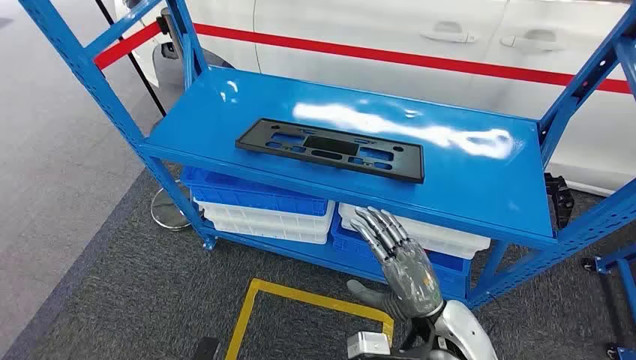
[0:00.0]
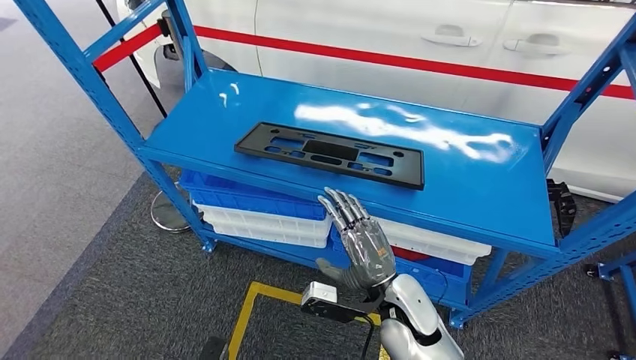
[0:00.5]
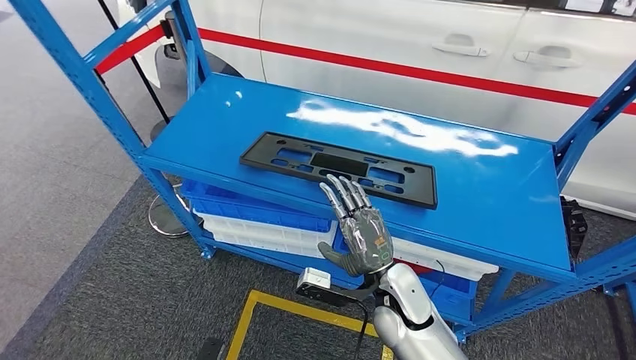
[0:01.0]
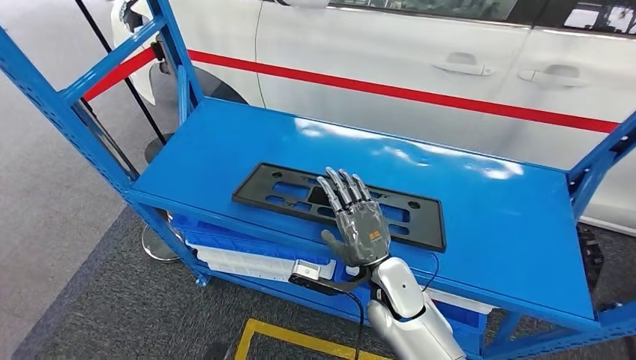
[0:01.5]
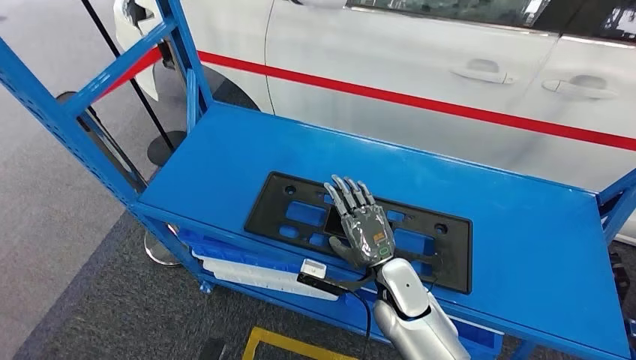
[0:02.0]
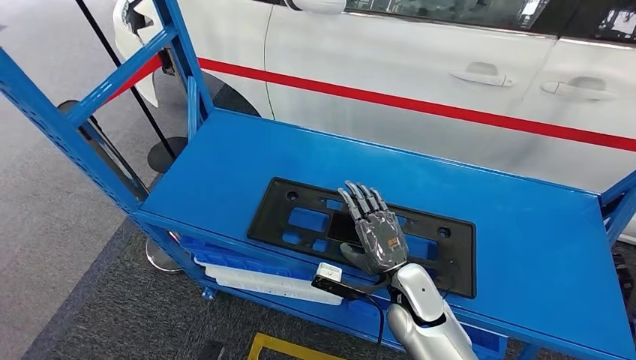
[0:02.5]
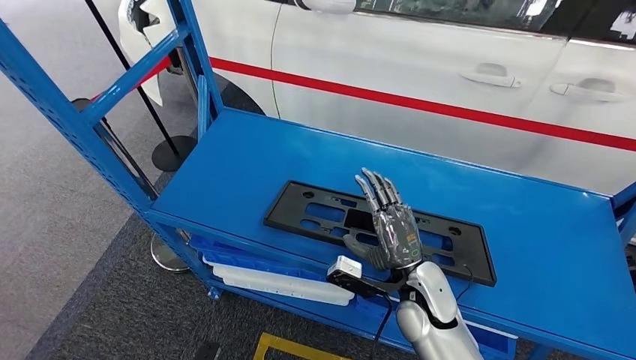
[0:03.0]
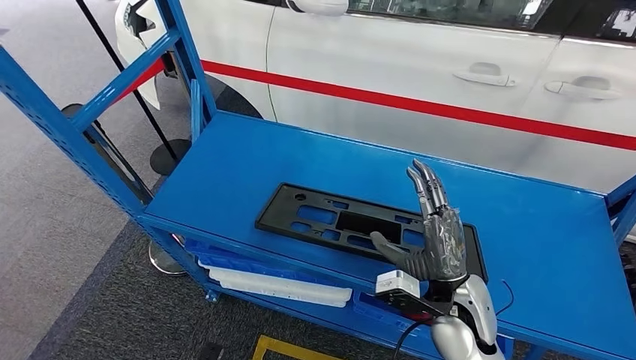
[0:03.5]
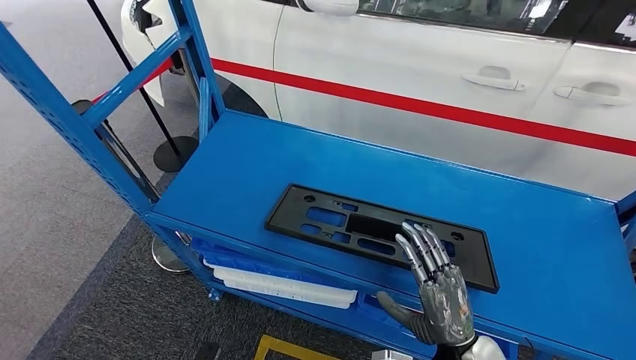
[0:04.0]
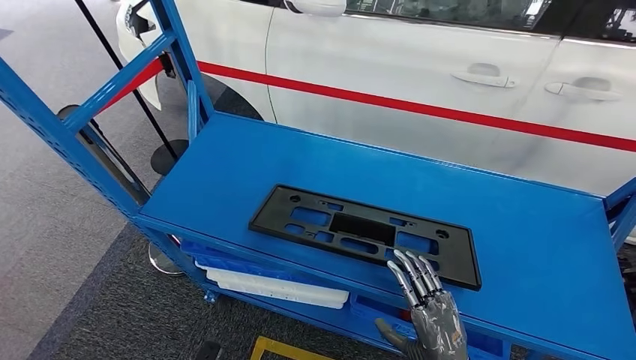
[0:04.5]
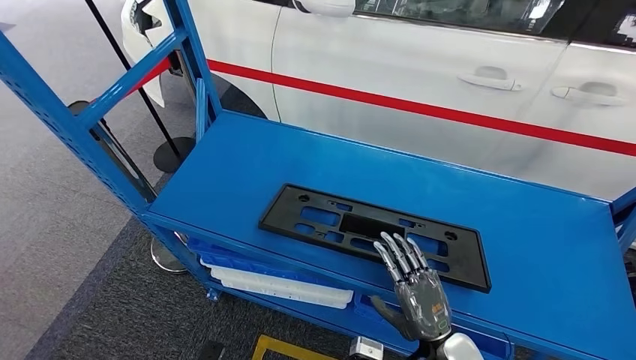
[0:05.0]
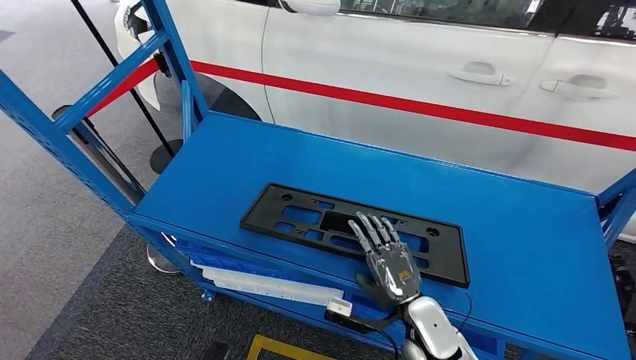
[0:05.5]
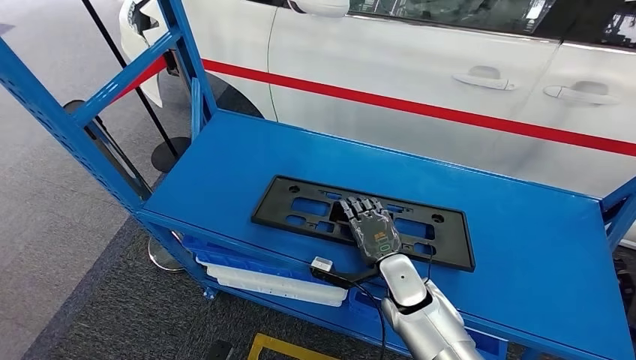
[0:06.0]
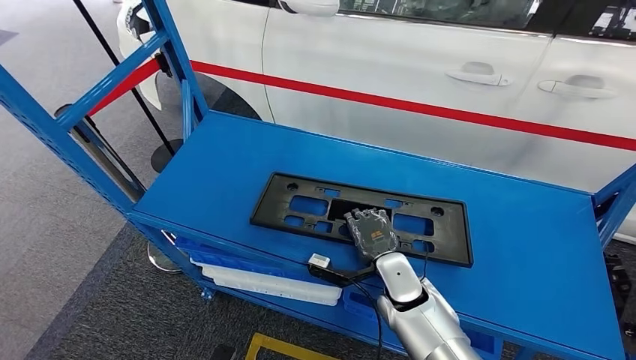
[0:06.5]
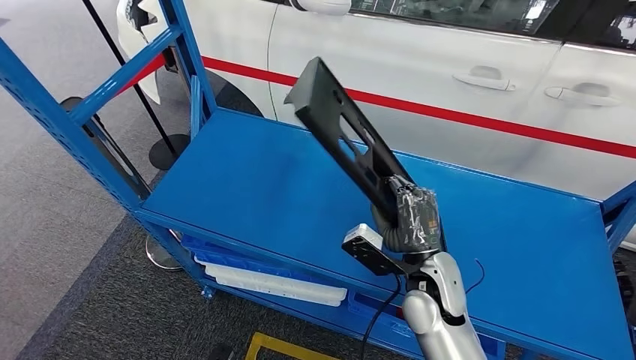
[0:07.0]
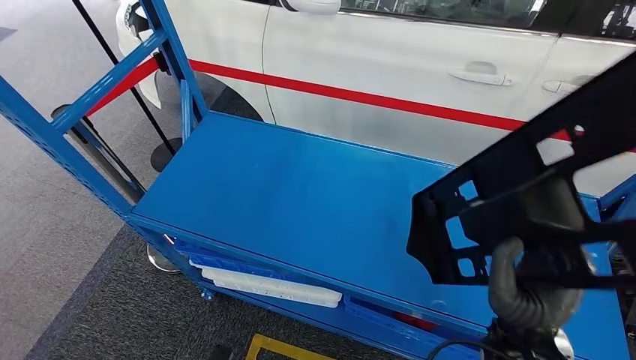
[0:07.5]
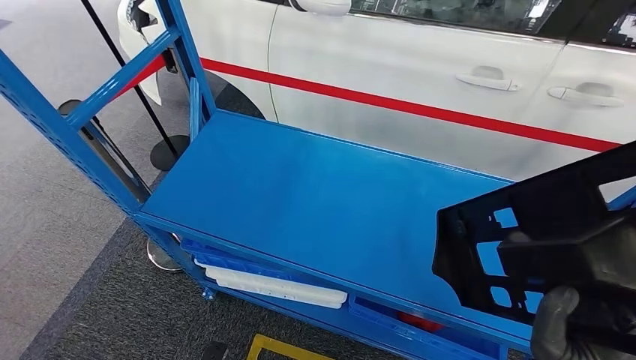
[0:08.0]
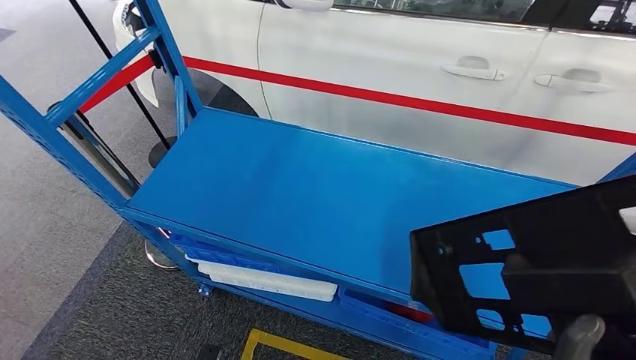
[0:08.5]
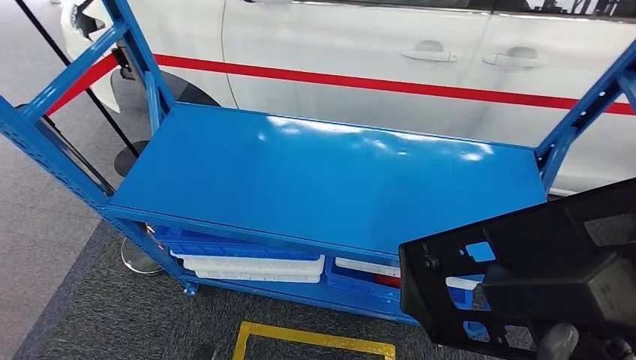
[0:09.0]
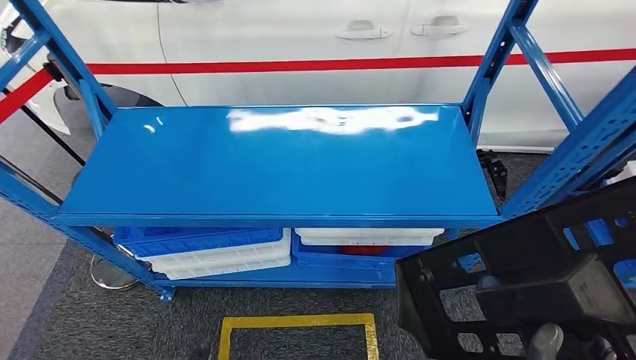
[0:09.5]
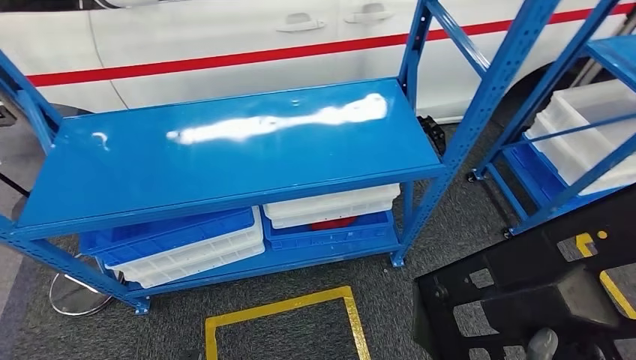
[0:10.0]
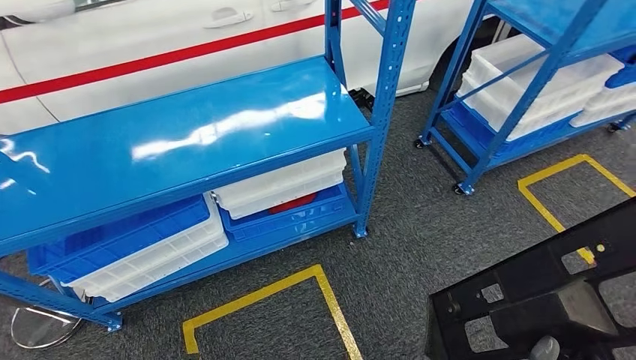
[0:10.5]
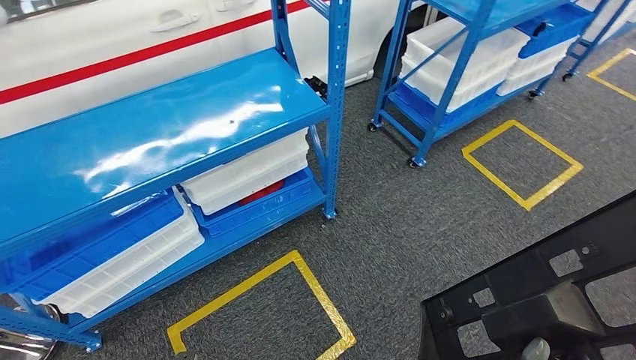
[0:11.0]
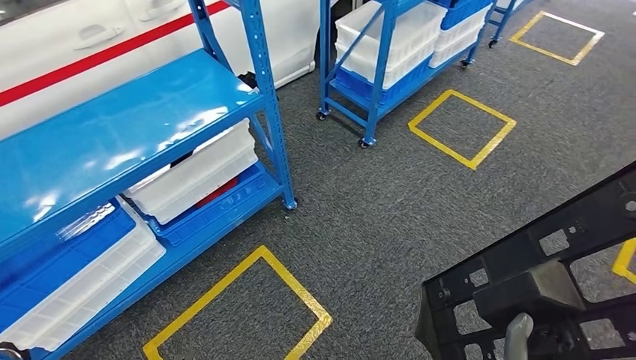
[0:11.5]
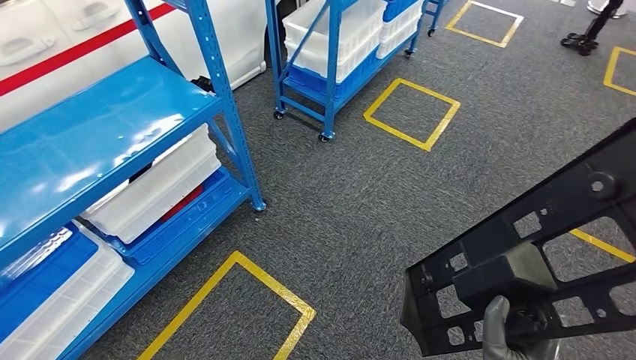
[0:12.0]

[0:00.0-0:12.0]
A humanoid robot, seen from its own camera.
Step, 0:00.0 to 0:11.0: Pick up the large material from the shelf.
0:04.0 to 0:06.0: The right hand travels forward and to the left by some 15 cm.

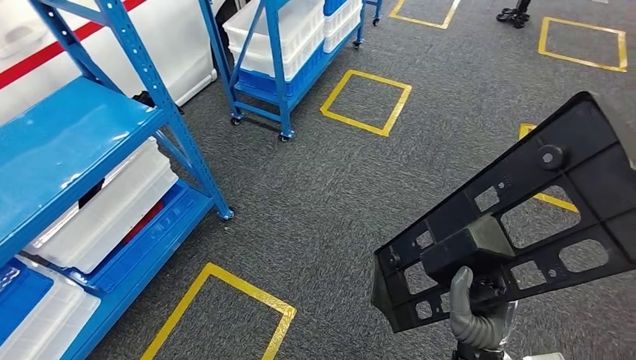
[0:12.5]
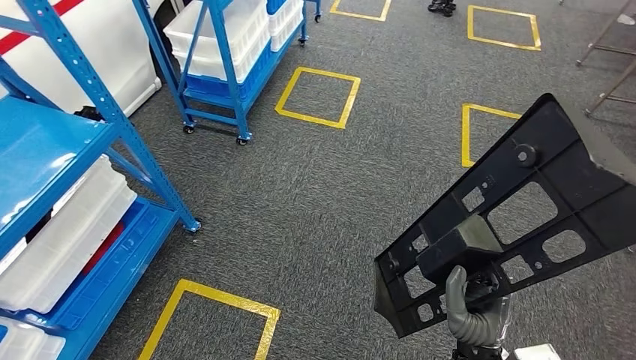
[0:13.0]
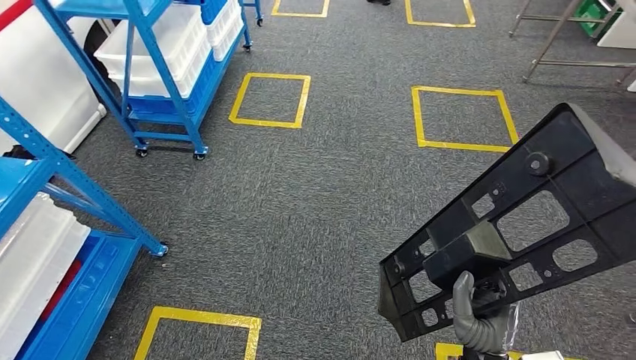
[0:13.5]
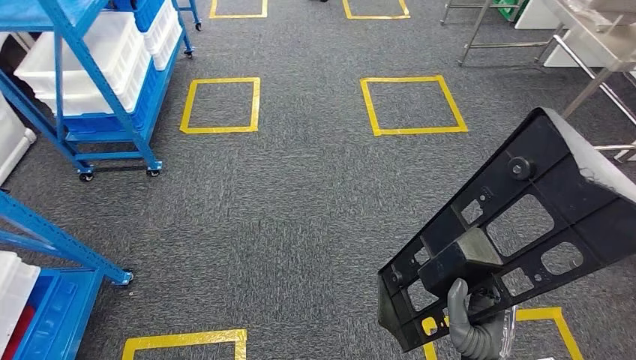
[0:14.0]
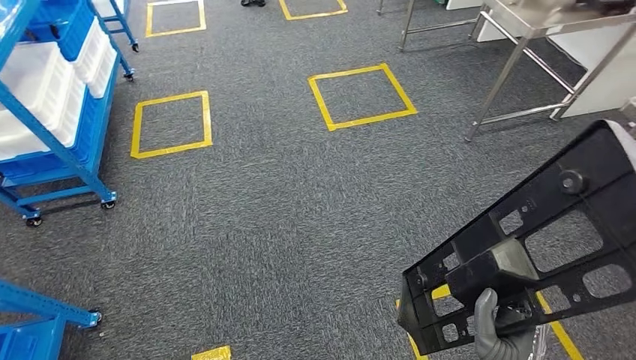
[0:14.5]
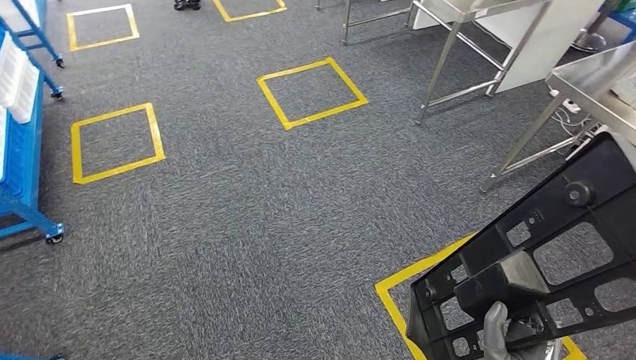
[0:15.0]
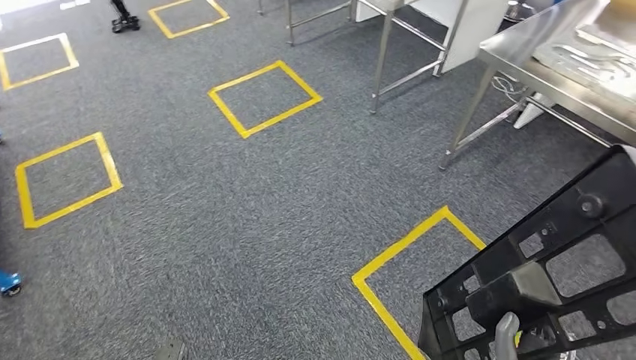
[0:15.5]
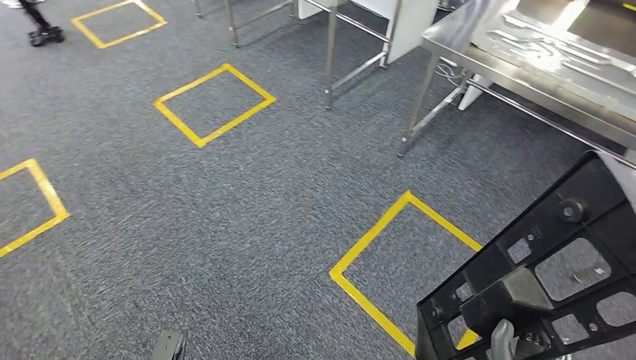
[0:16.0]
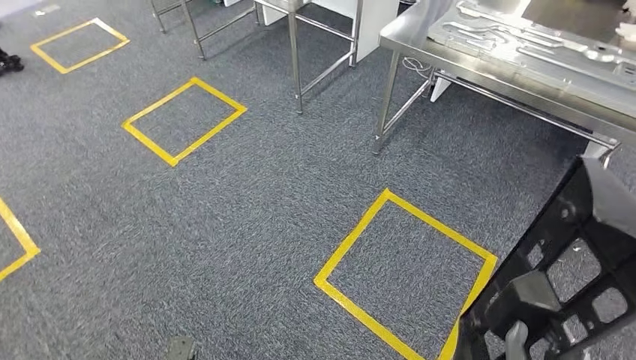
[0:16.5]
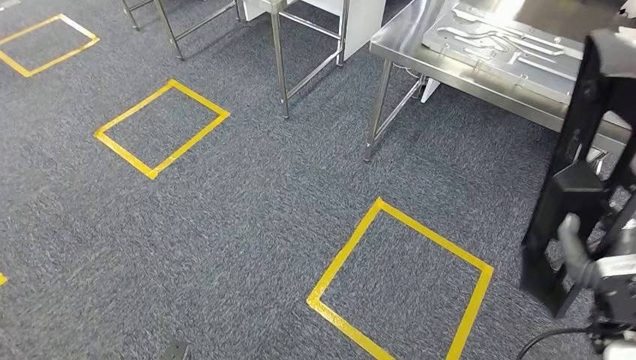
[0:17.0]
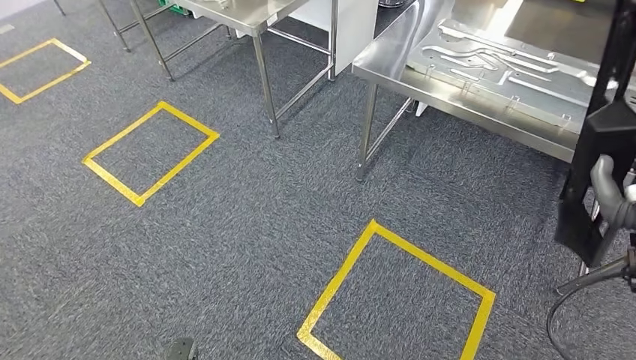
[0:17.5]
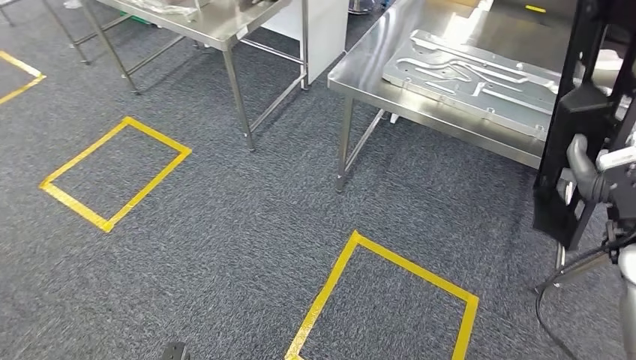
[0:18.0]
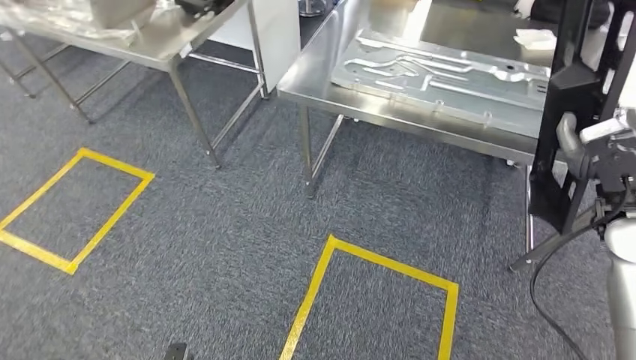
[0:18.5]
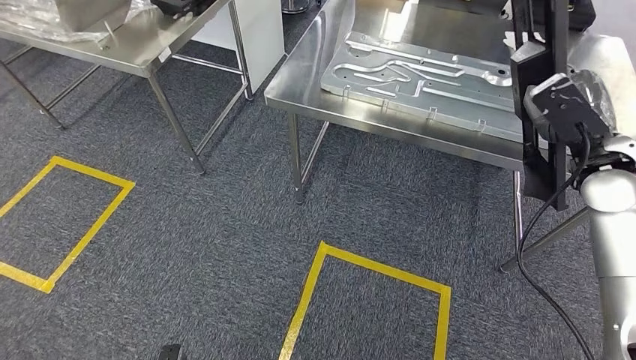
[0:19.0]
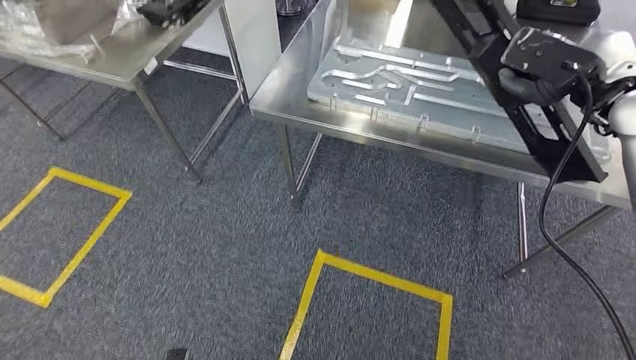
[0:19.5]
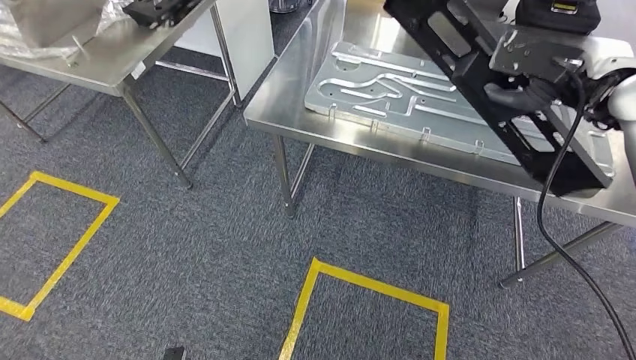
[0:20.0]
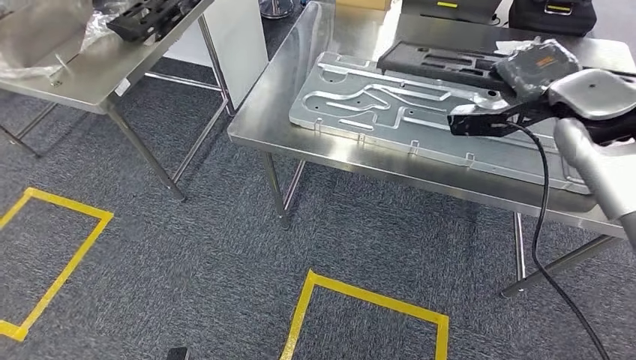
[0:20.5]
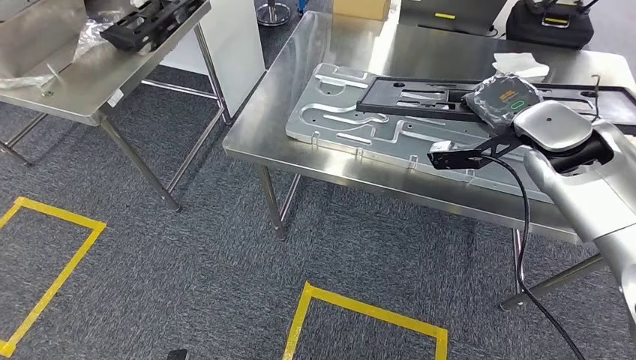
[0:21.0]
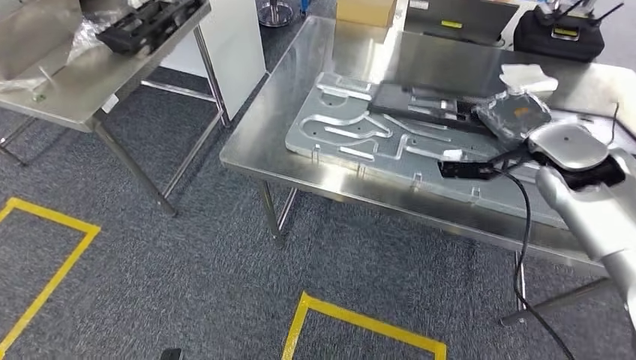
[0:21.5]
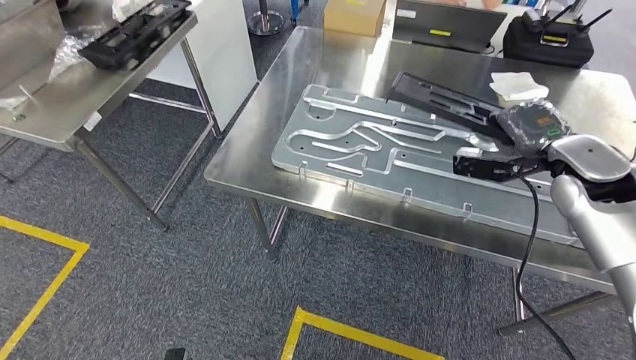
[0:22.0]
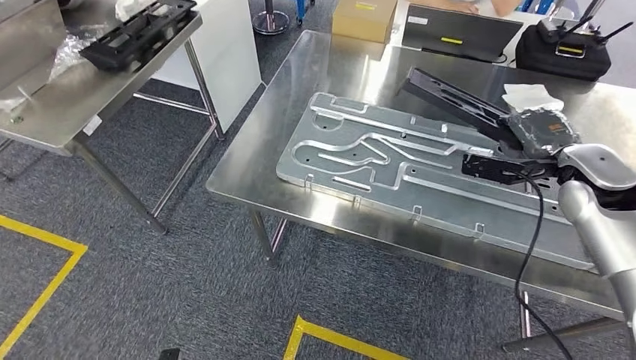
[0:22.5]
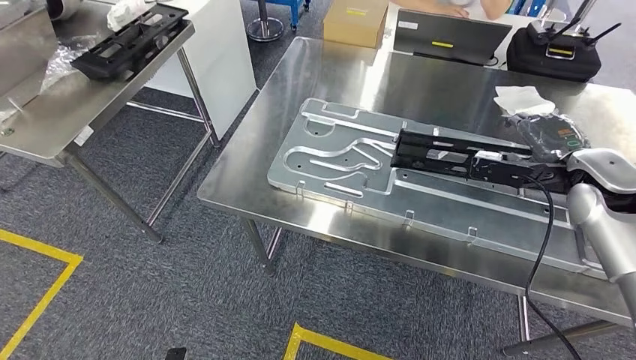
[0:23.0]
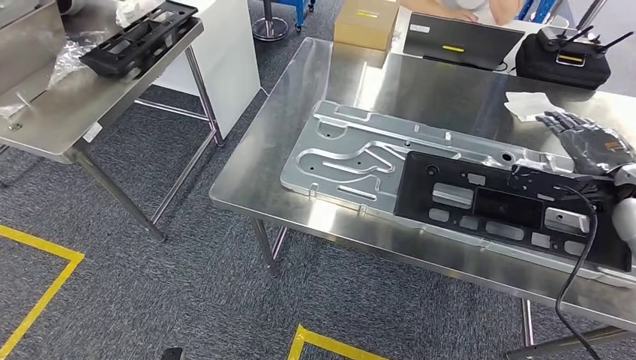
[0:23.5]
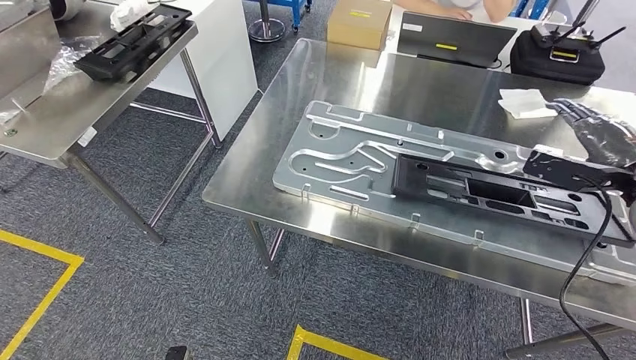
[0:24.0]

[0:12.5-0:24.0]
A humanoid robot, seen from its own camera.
Step, 0:12.5 to 0:19.0: Move the large material to the workbench.
